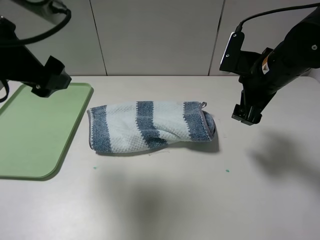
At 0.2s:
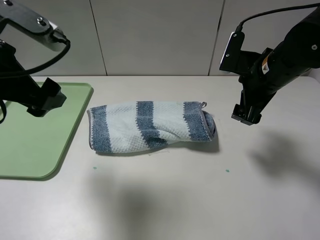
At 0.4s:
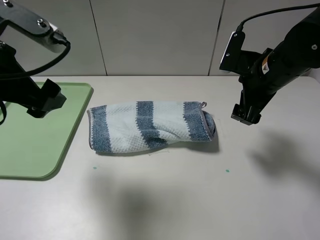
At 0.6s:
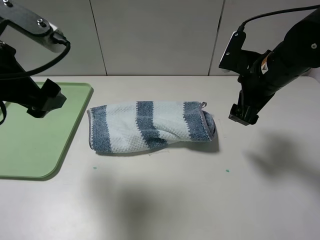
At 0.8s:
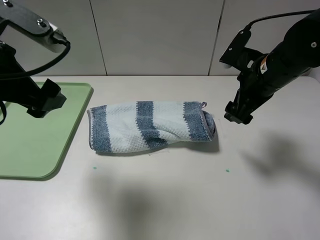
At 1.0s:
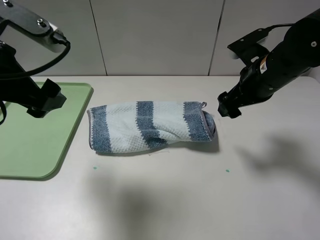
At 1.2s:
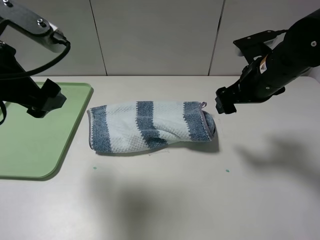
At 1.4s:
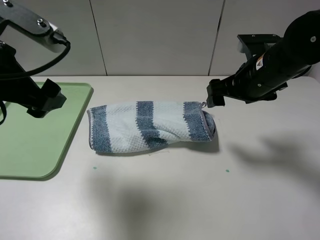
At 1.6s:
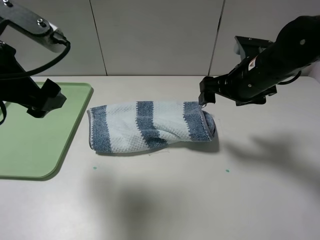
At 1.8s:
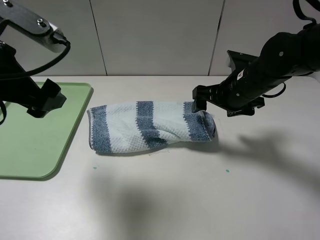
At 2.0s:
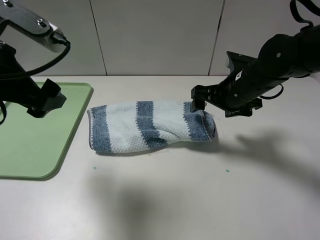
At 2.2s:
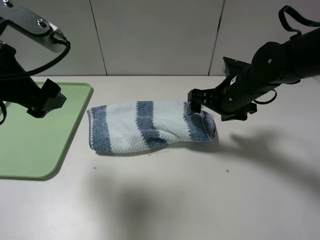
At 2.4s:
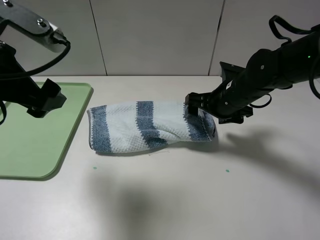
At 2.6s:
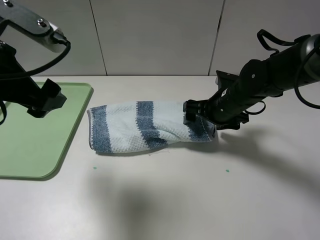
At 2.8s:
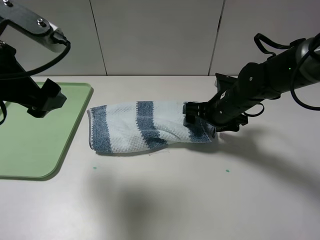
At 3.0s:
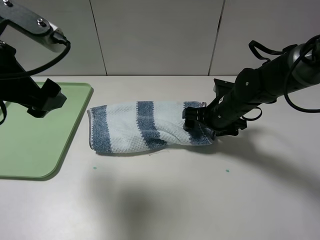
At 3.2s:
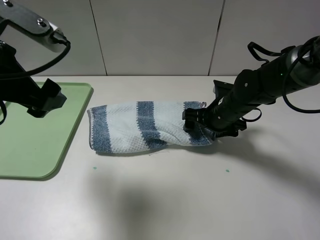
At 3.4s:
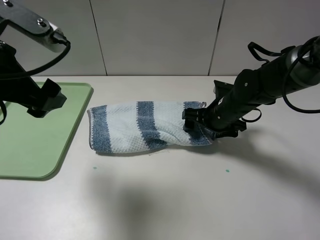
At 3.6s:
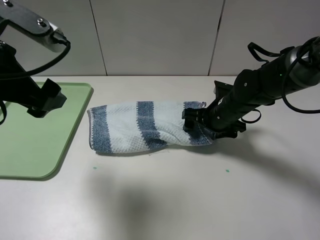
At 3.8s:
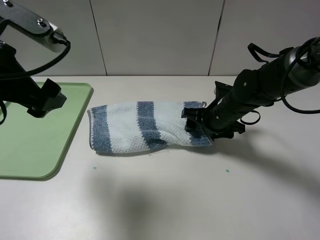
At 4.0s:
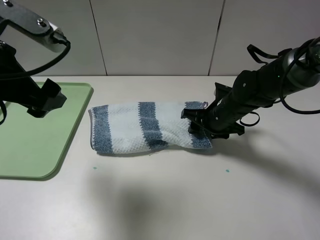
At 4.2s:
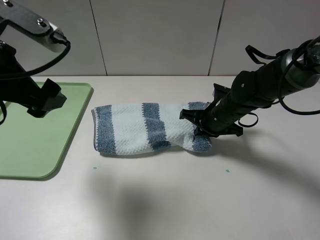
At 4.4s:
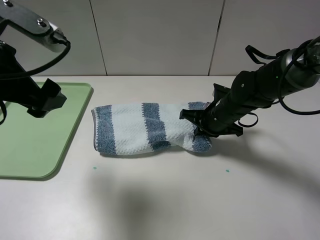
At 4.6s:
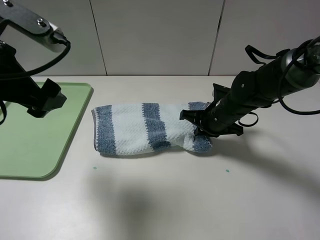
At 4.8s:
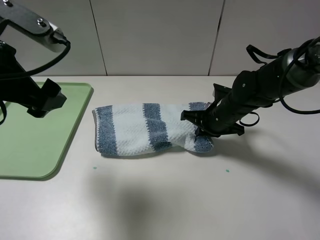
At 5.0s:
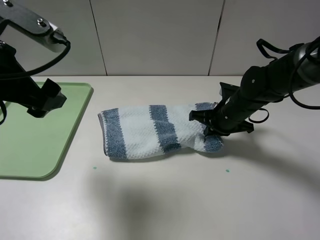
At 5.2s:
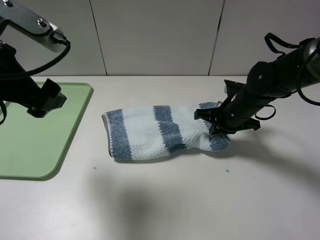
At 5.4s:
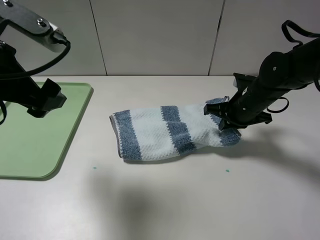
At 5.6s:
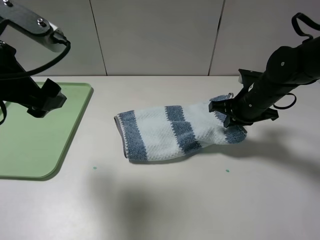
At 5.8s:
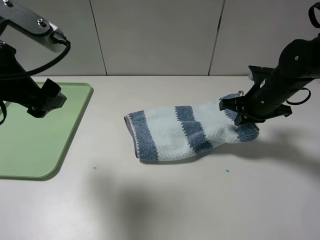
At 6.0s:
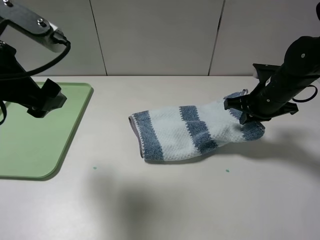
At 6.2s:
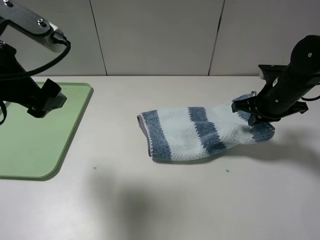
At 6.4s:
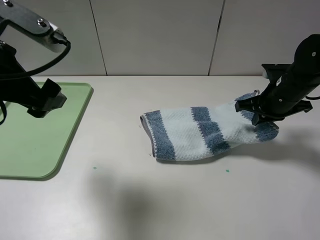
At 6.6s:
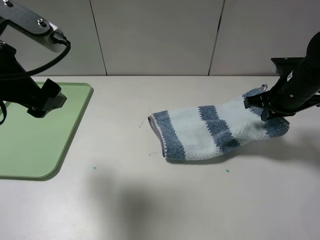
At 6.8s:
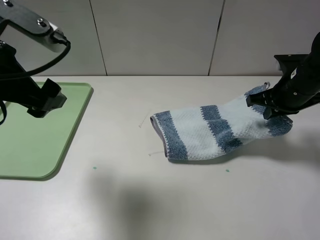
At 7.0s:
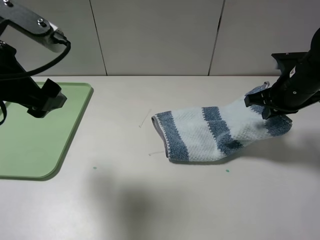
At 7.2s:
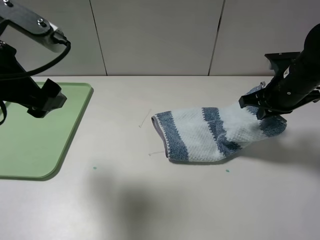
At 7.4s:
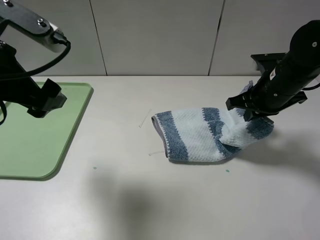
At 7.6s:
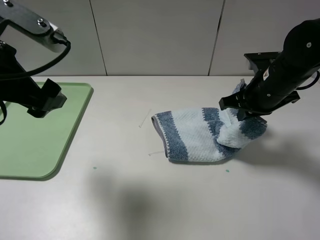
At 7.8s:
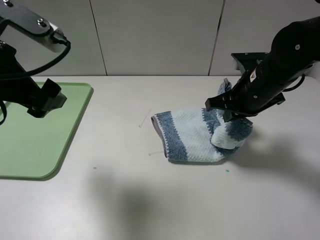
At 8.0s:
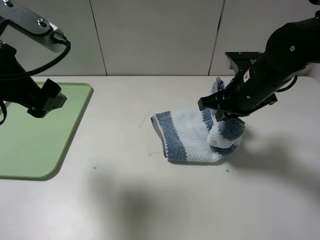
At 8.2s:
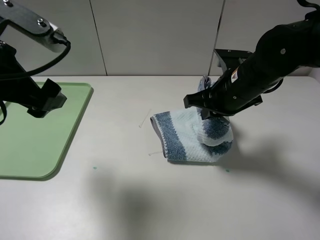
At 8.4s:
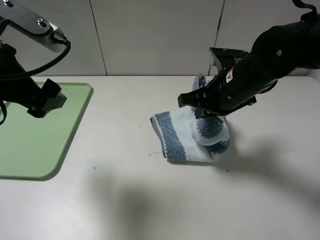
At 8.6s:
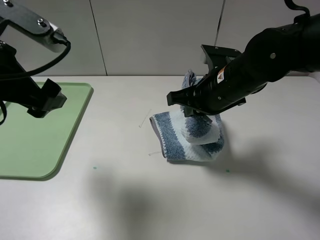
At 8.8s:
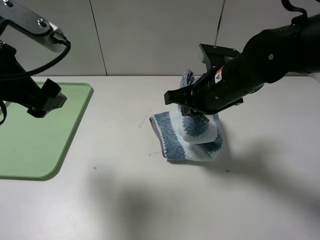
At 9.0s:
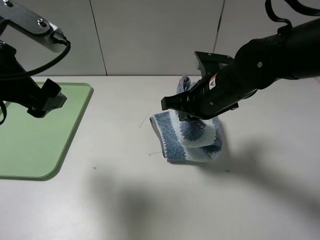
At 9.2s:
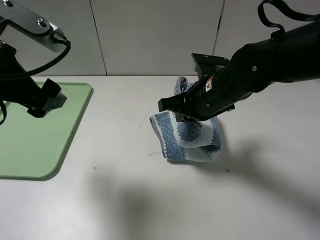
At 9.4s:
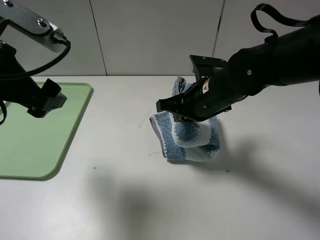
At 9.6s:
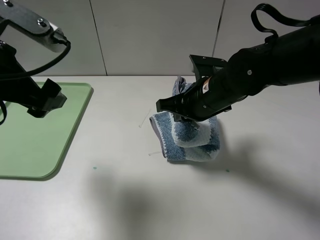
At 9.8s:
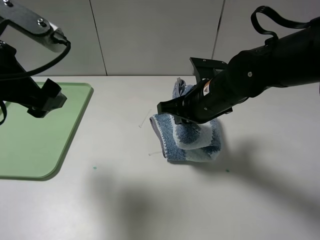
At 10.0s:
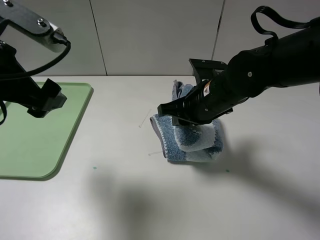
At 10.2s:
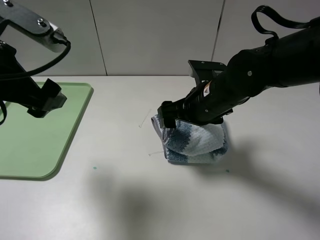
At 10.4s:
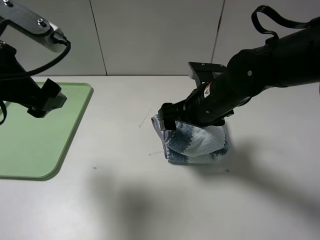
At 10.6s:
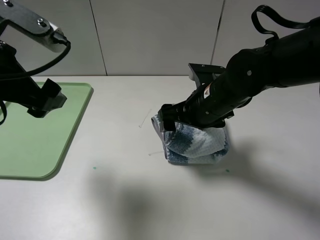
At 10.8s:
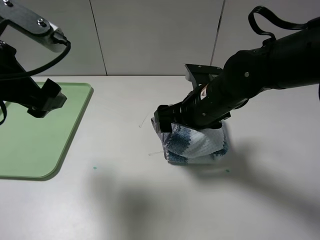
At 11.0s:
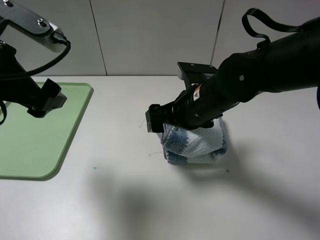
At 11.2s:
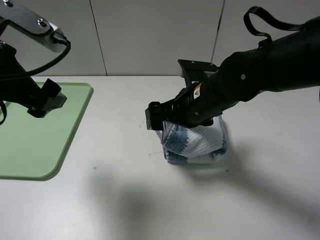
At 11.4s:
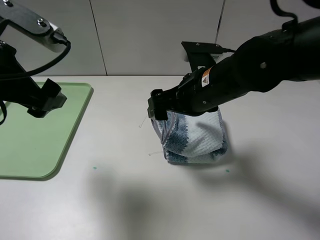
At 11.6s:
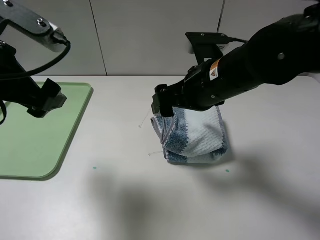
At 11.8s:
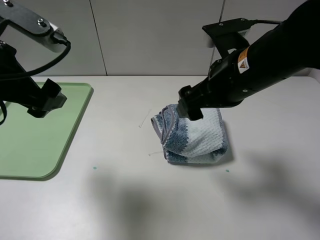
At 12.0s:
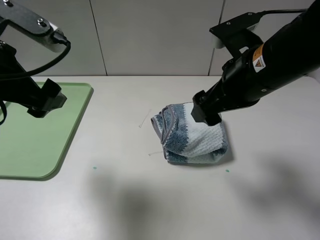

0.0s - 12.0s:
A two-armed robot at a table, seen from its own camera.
Step, 0.0s - 4.4s: Grasp the blue white towel with the right gripper.
Step, 4.6s - 11.4s: Fold the blue white towel from right to left with right gripper.
1.6s - 3.0s: The right gripper travels downward by approximately 10 cm.
3.0s - 4.4s: The right gripper closes its fingers.
4.4s - 6.0s: The right gripper heads to the right and upward, covering about 10 cm.
6.0s - 7.6s: The right gripper ends up approximately 5 cm from where it was.
7.6s - 9.0s: The right gripper travels to the left by some 10 cm.
9.0s - 10.4s: The right gripper opens up.
10.4s - 12.0s: The right gripper heads upward, covering approximately 10 cm.

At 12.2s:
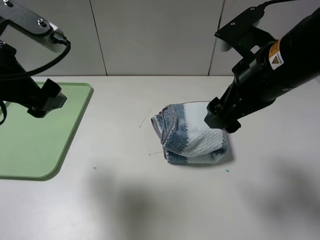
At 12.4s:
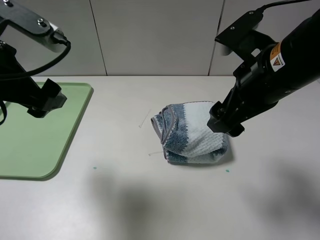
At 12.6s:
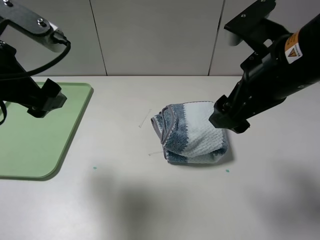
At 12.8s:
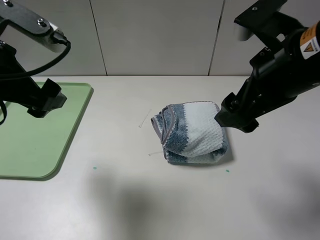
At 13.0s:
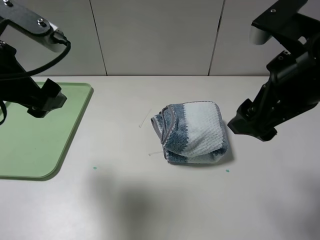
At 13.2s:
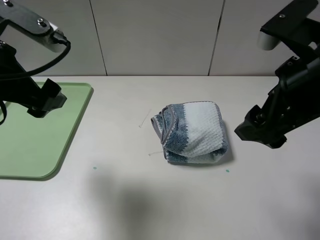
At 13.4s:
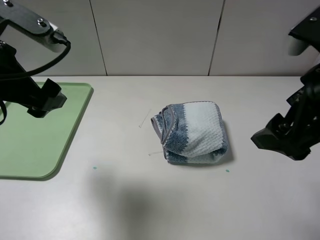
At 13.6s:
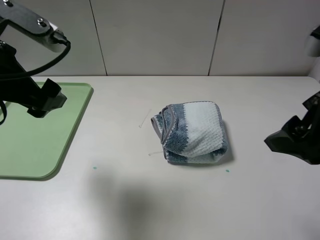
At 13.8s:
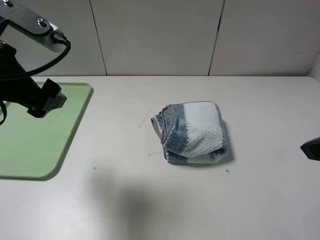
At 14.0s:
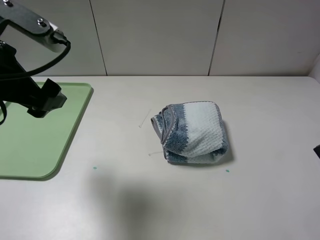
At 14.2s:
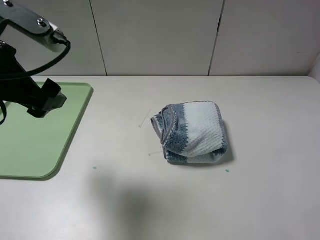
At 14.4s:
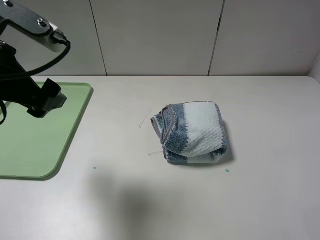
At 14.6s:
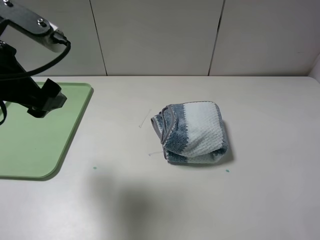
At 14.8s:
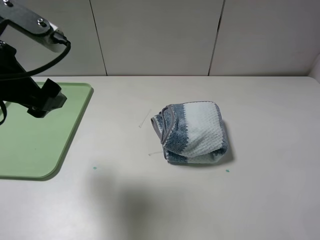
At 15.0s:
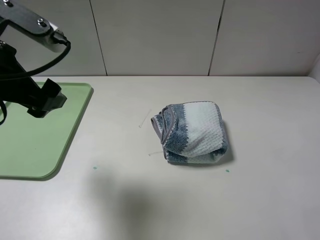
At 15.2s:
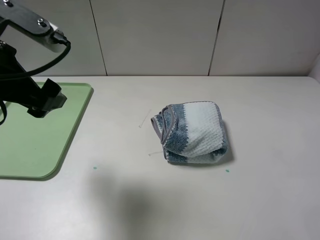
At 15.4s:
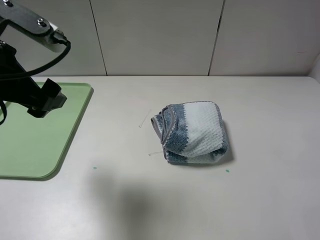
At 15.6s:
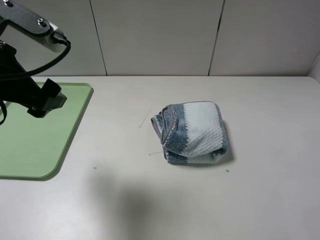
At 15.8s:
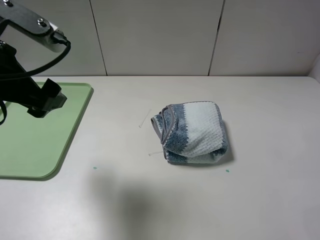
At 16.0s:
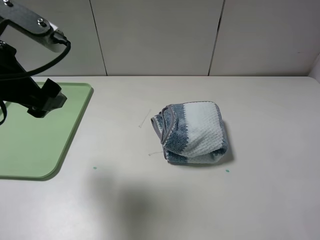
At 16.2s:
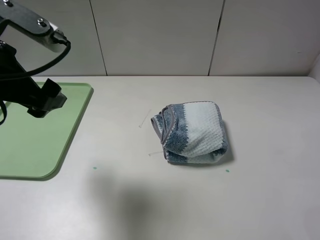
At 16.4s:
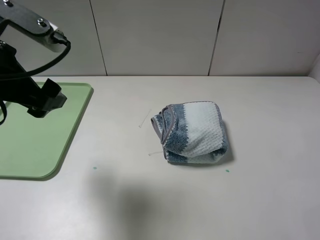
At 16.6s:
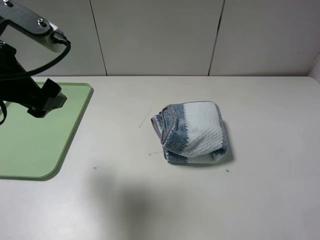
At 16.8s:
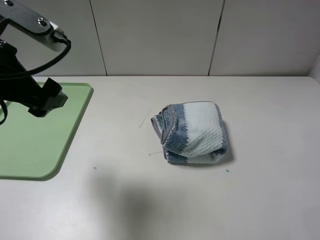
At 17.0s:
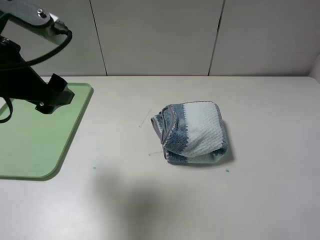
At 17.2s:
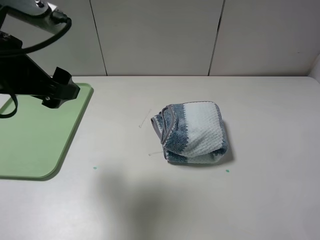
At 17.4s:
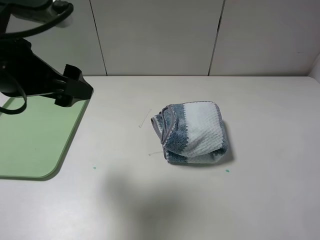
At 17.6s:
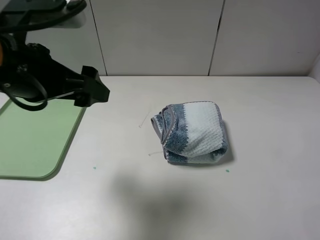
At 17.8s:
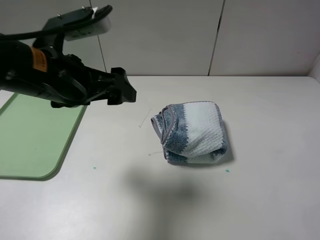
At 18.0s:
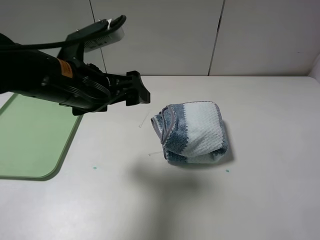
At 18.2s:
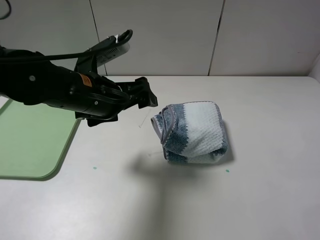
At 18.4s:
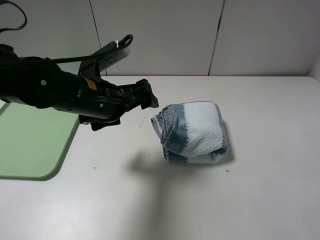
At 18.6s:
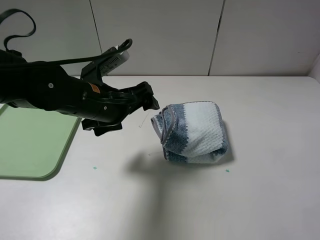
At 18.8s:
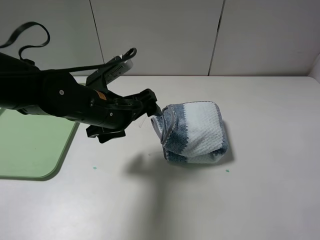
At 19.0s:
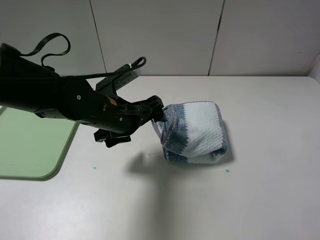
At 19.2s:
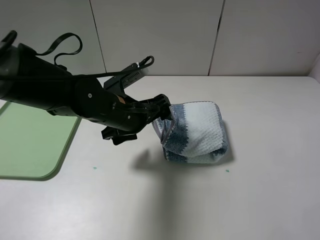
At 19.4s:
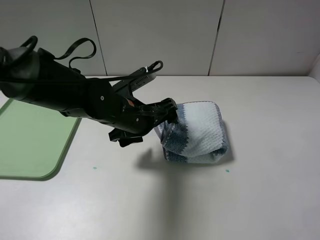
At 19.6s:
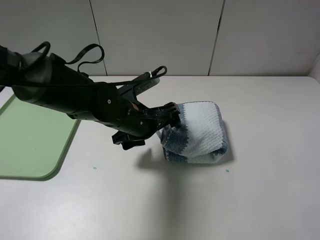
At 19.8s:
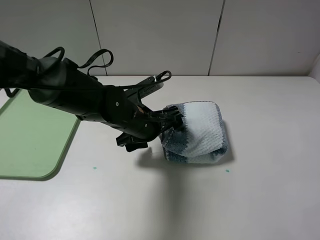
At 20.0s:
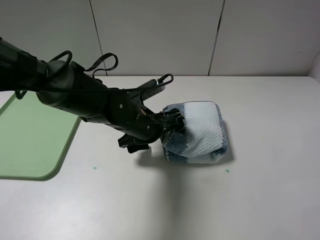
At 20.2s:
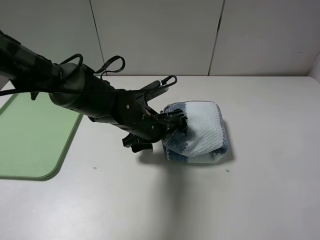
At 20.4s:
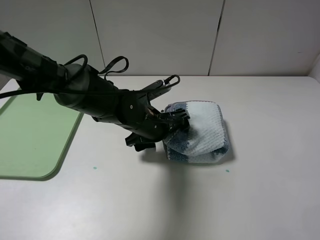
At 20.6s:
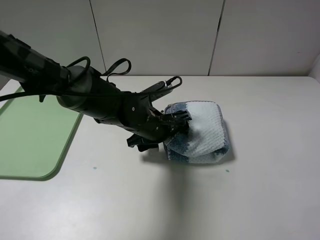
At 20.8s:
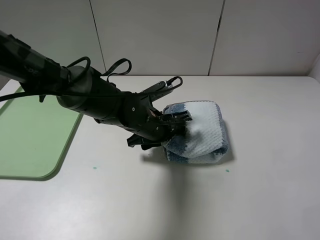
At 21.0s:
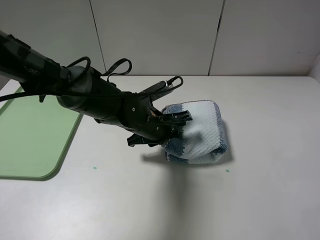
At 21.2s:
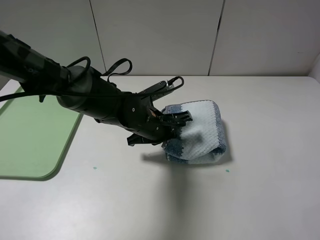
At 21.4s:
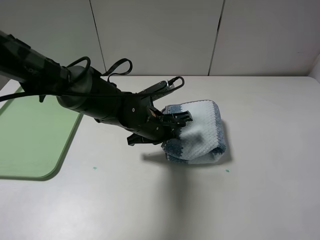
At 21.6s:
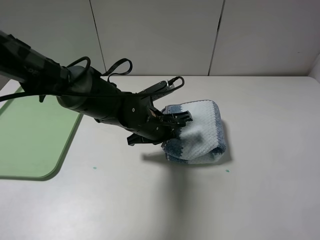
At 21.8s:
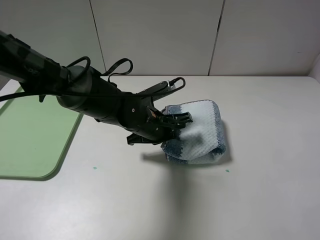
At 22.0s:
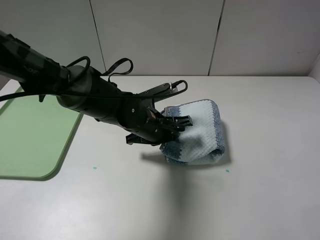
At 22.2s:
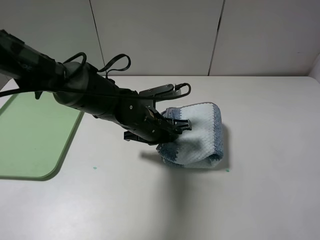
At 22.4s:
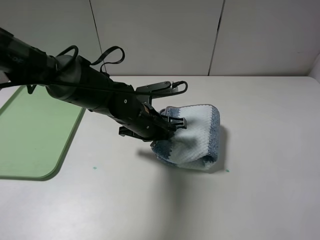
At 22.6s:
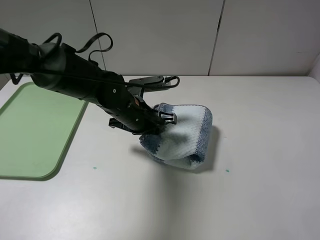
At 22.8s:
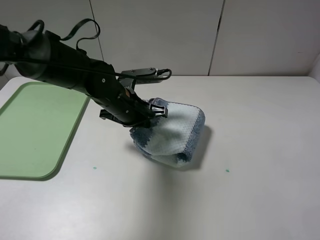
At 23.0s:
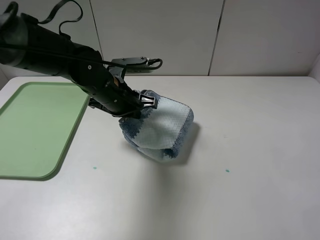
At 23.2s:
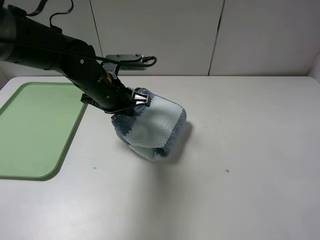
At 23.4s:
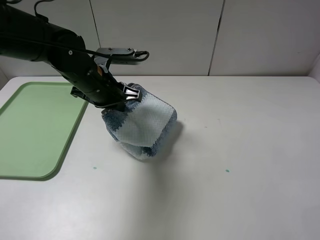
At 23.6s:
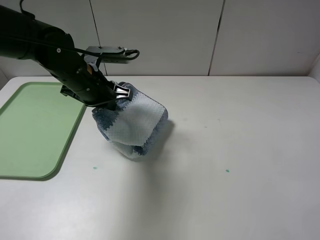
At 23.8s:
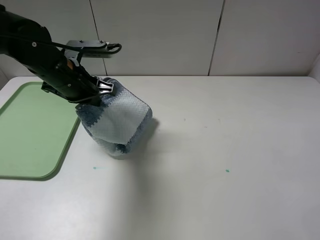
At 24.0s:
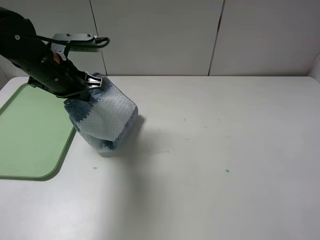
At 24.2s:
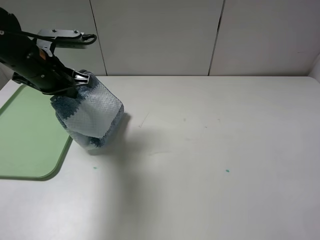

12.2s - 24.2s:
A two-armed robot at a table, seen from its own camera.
Step, 12.2s - 22.2s: Grasp the blue white towel with the left gripper.
12.2s - 13.8s: The right gripper goes roughly 15 cm to the right and backward.
15.2s - 16.6s: Both grippers stay put.
16.6s - 18.2s: The left gripper travels downward, to the right and forward by some 15 cm.
18.2s - 19.8s: The left gripper shifts roughly 10 cm downward and to the right.
19.8s - 21.2s: The left gripper closes up.
21.2s - 22.6s: The left gripper changes place by about 5 cm.
22.6s - 24.2s: The left gripper goes approximately 20 cm to the left and upward.
